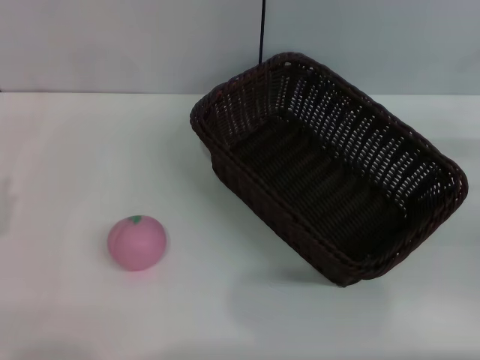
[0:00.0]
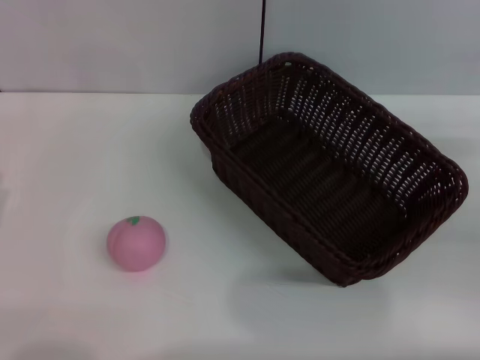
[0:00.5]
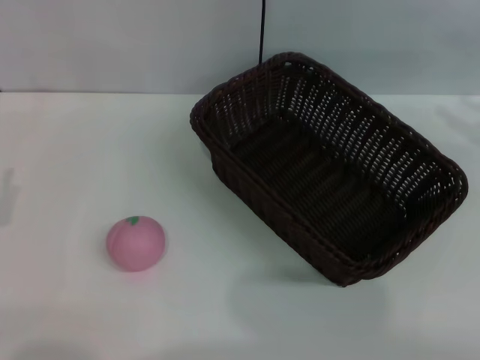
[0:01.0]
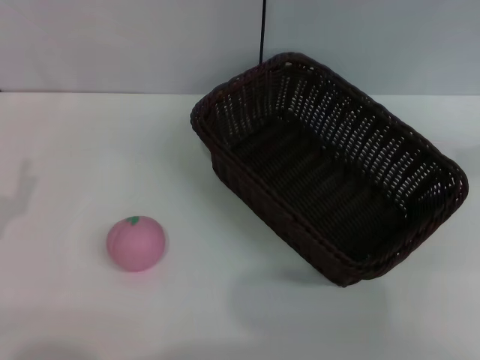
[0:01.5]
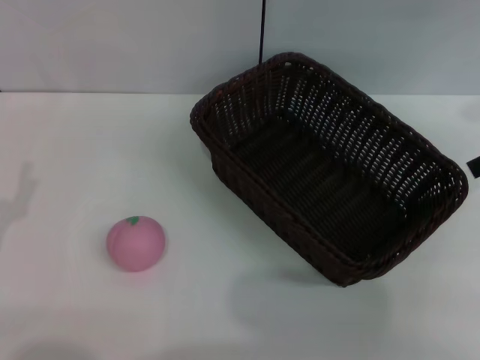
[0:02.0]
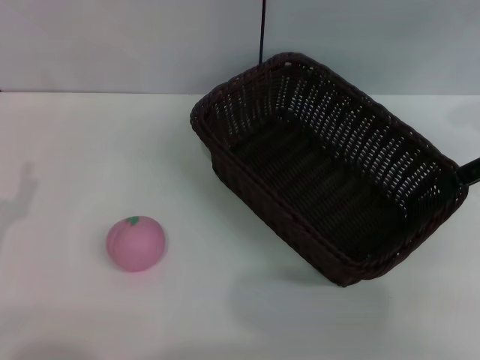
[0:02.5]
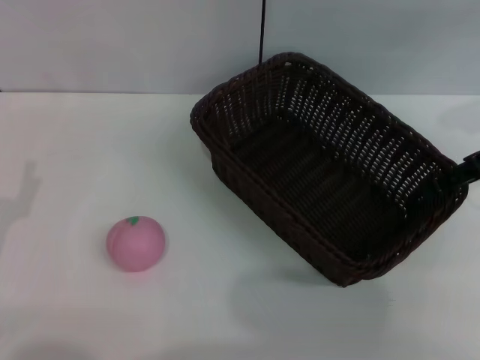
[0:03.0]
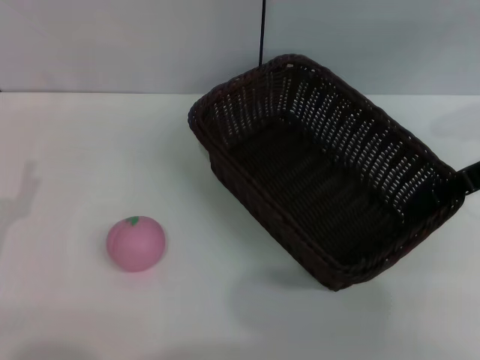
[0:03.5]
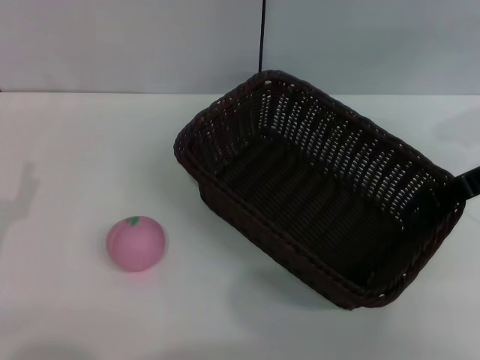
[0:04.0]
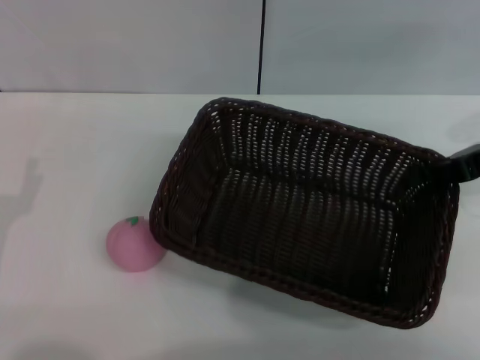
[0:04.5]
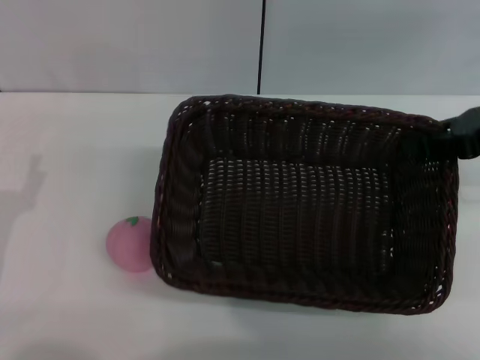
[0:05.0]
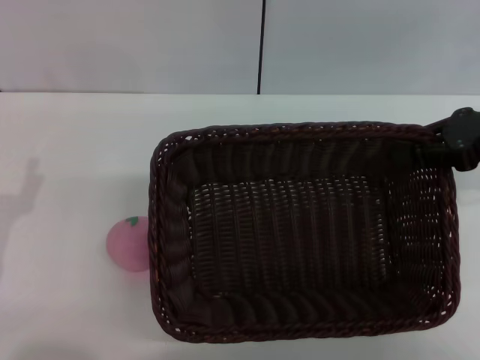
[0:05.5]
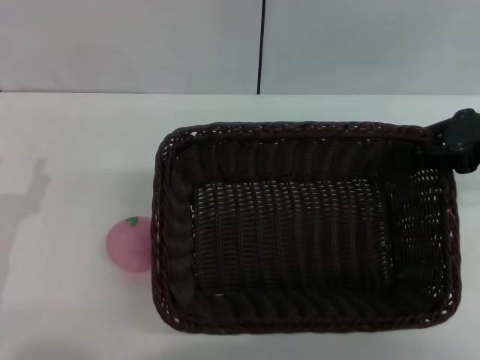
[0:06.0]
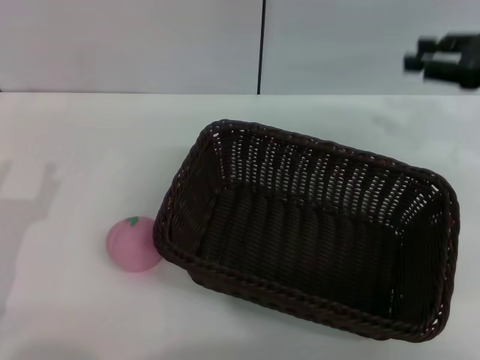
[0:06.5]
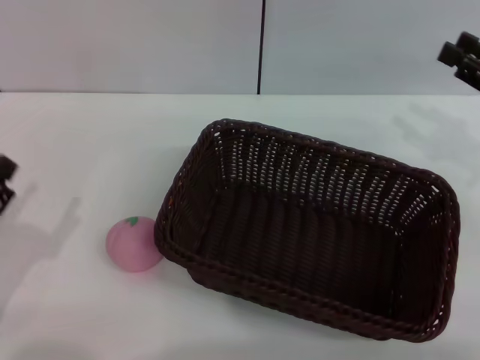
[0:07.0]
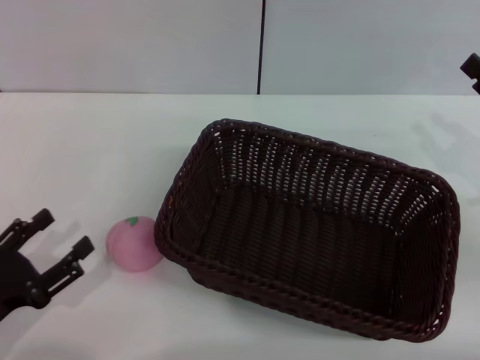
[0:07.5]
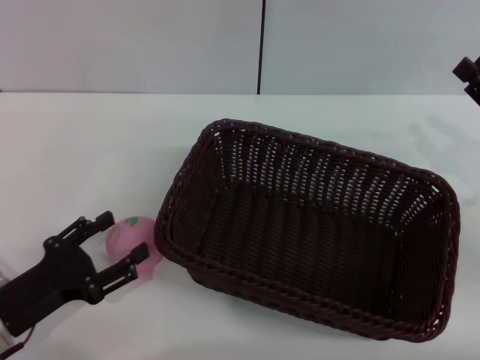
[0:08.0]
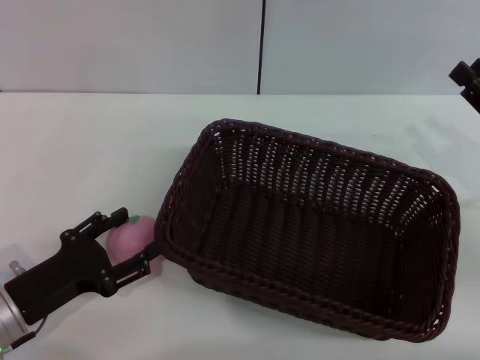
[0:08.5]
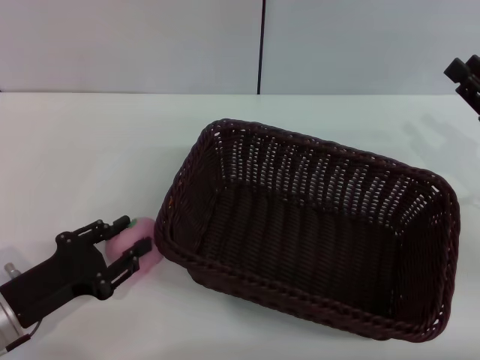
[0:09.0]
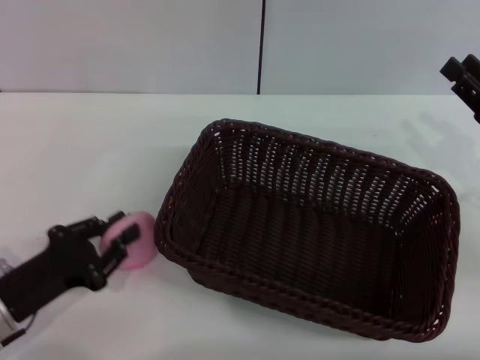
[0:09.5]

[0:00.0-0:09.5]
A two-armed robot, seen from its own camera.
Step, 0:00.0 to 0:04.5: Pick up the dark basket with the right gripper.
Step, 0:05.0 to 0:06.0: Place the dark basket in the center of view with the right gripper.
0:00.0 to 0:02.0: The right gripper travels upward and forward by approximately 20 cm.
0:02.0 to 0:04.0: The right gripper moves downward, about 5 cm, and closes.
0:05.5 to 0:07.5: The right gripper goes roughly 10 cm downward and backward, and opens its fingers.
0:07.5 to 0:09.5: The left gripper moves about 5 cm, and closes its fingers.

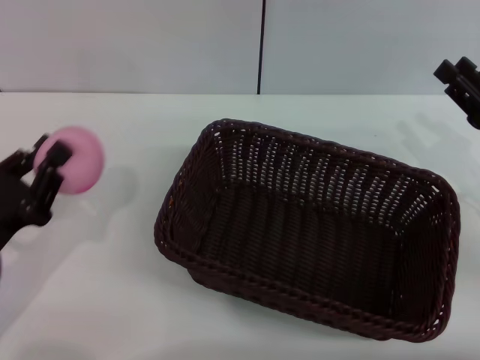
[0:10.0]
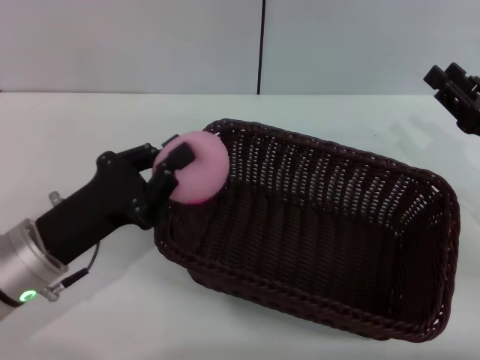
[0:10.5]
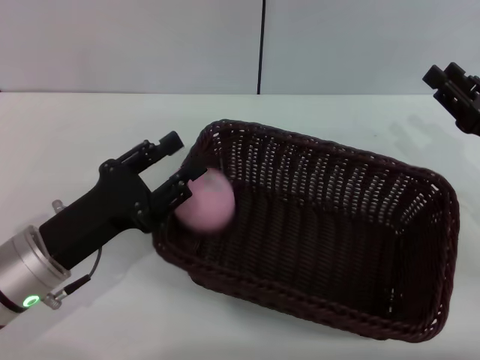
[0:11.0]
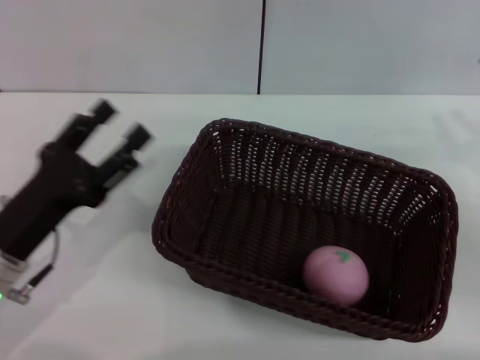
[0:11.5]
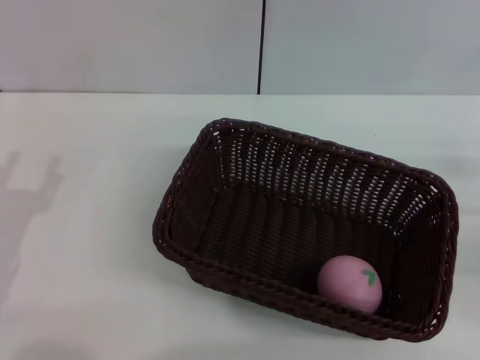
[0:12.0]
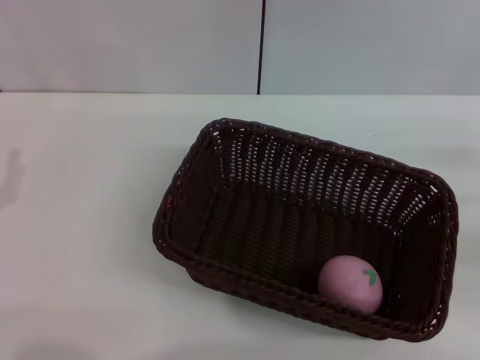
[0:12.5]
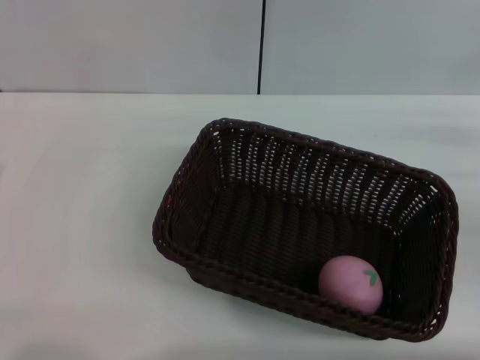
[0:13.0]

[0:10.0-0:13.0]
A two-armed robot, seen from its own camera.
Step, 0:10.0 to 0:11.0: Place the peach into the basket with the left gripper.
0:10.0 to 0:11.5: The left gripper opens its fingers.
0:11.5 to 0:13.0: The right gripper ends up approximately 5 cm from where it was, while the left gripper goes about 10 cm to the left.
